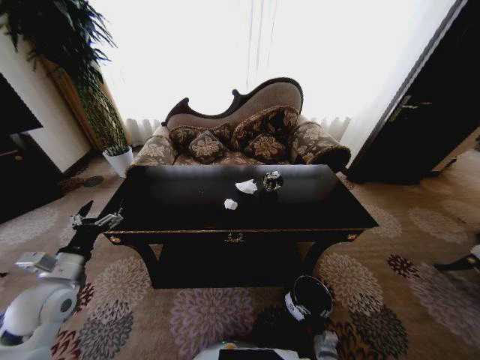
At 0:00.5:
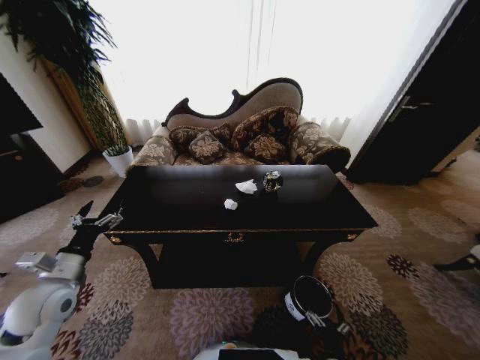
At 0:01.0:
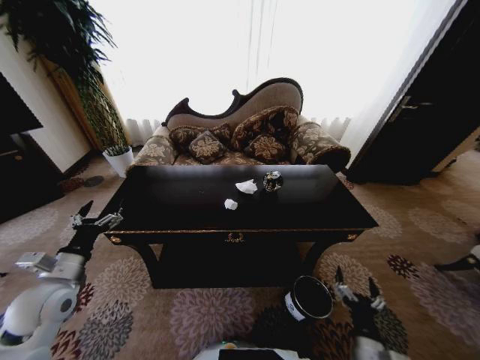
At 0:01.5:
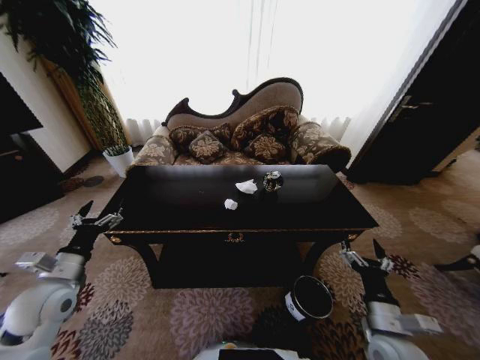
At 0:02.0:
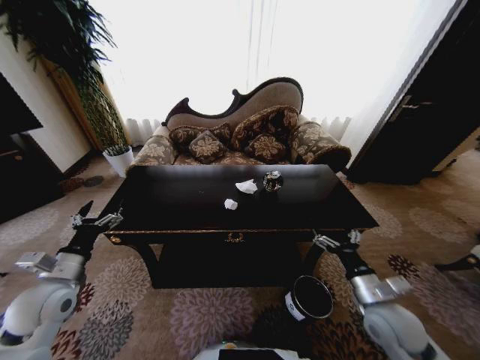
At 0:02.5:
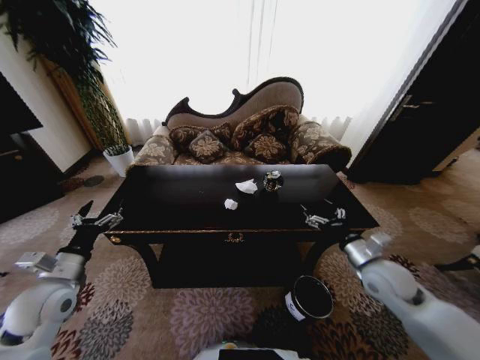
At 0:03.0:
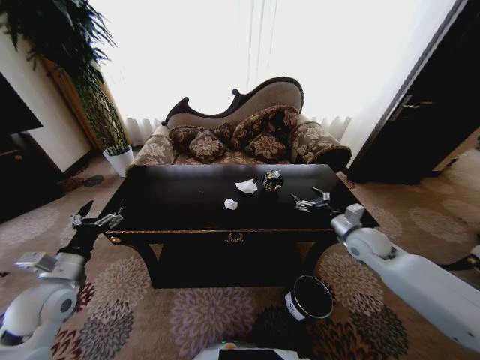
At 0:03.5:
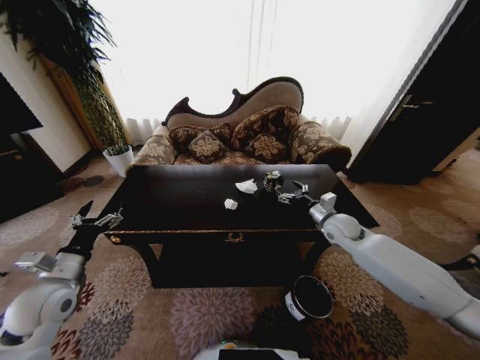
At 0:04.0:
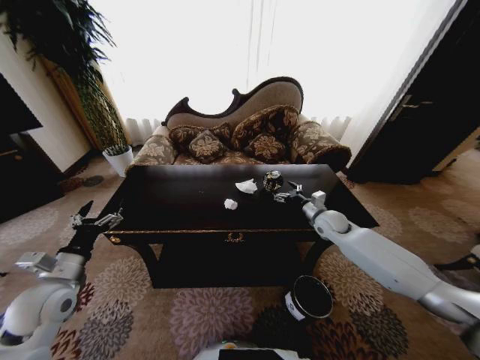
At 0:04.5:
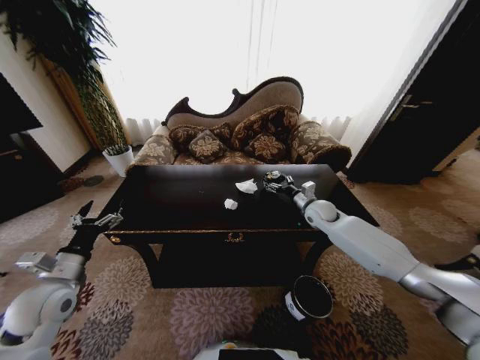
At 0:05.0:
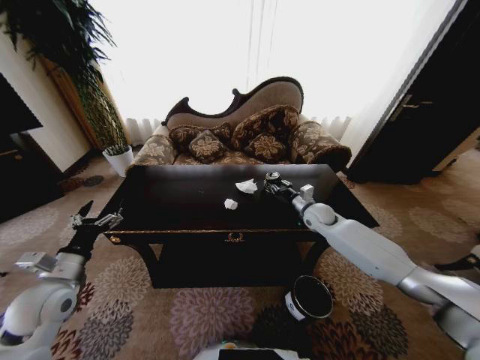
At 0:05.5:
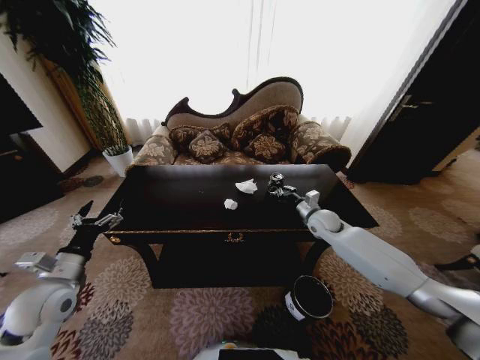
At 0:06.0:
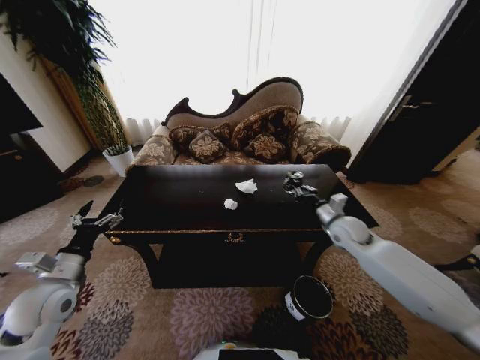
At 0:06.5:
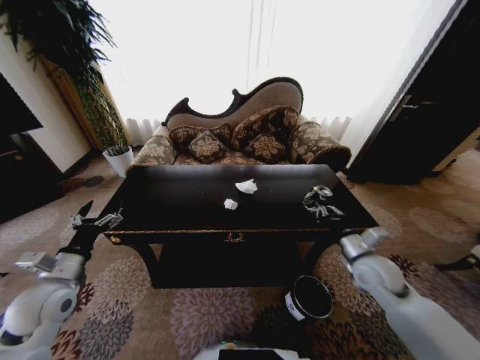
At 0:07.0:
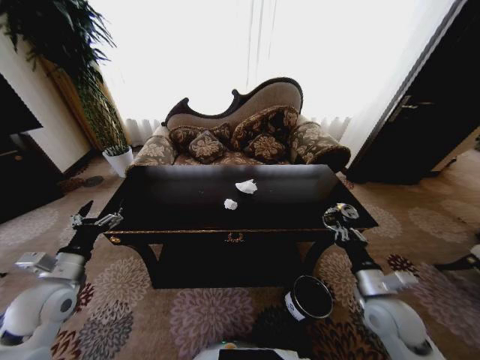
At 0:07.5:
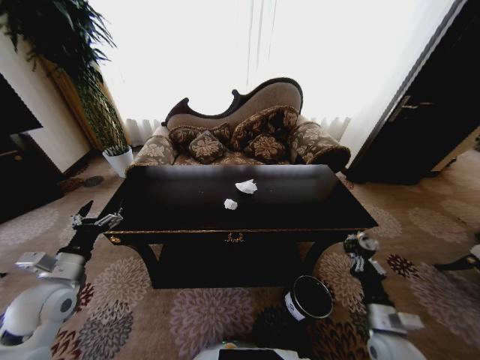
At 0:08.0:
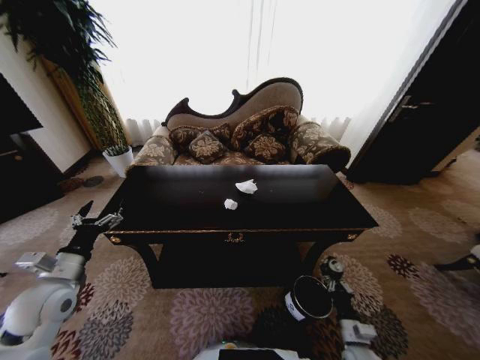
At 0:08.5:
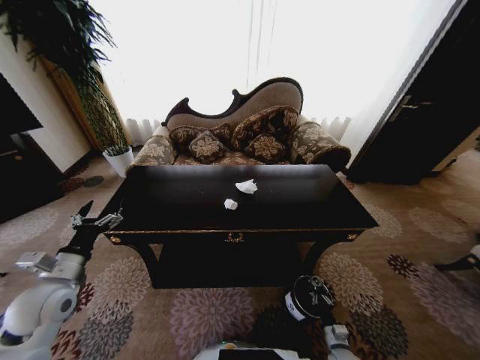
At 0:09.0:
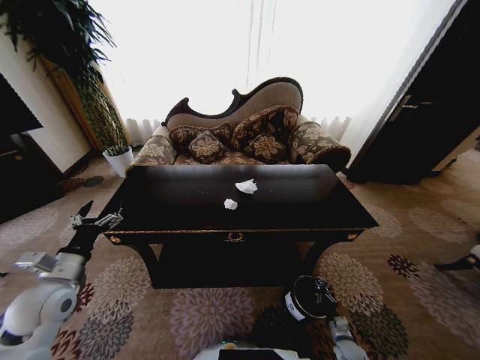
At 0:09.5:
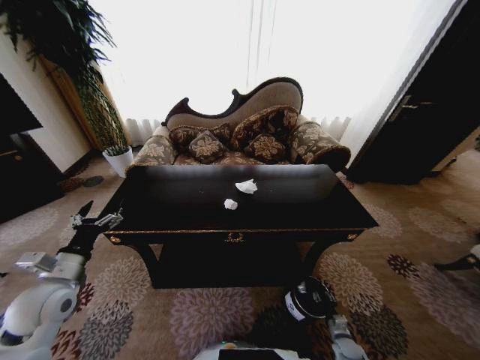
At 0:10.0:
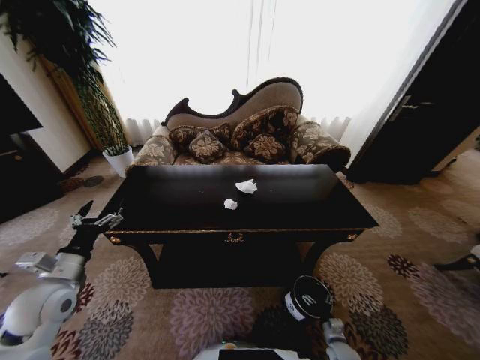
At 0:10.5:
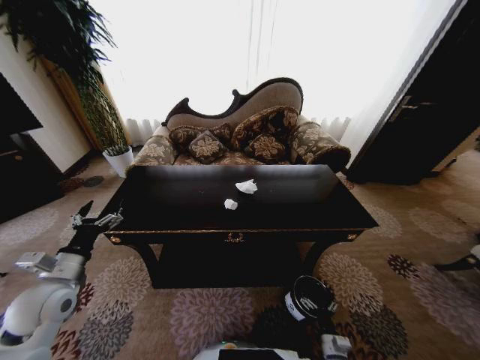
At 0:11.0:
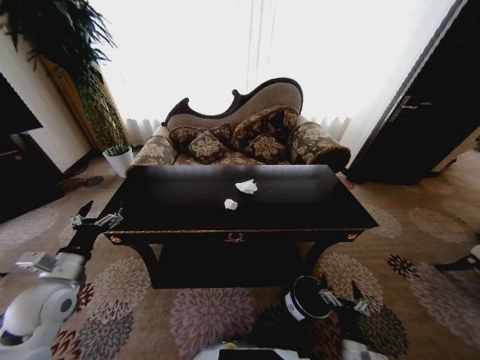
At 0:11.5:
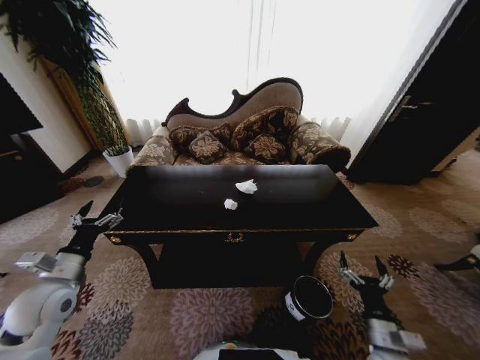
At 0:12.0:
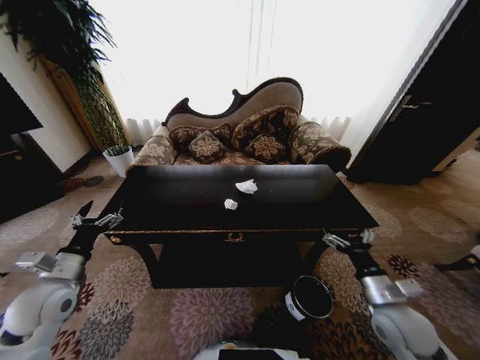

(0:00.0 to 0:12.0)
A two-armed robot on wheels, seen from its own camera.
Task of the whole recording: Move to the front of the table and place the trash on the table into the trash bin.
0:00.0 - 0:02.0: The right gripper is displaced upward by approximately 35 cm.
0:02.0 - 0:04.0: The right gripper is displaced forward by about 30 cm.
0:04.0 - 0:06.0: The right gripper heads backward, covering approximately 5 cm, and closes up.
0:06.0 - 0:08.0: The right gripper goes about 40 cm backward and downward.
0:08.0 - 0:10.0: The right gripper heads downward, covering roughly 15 cm, and opens.
0:10.0 - 0:12.0: The right gripper goes about 35 cm upward.

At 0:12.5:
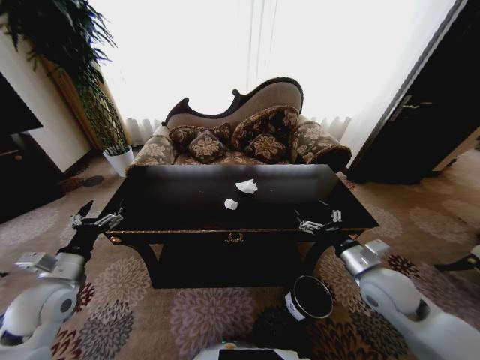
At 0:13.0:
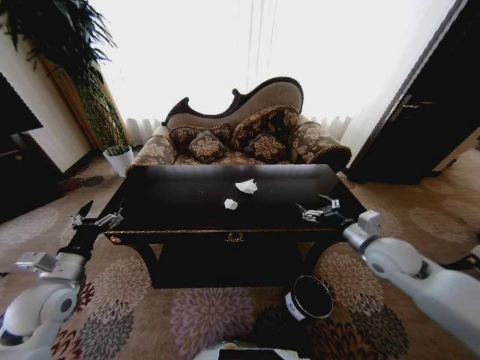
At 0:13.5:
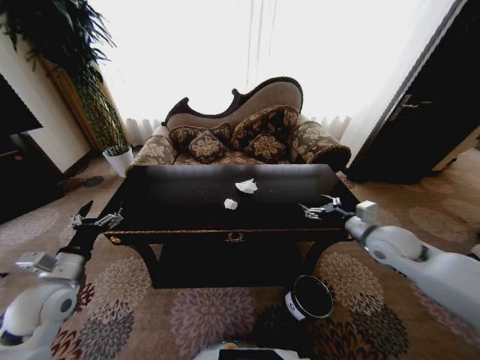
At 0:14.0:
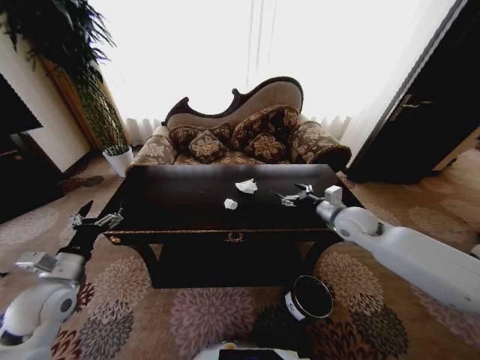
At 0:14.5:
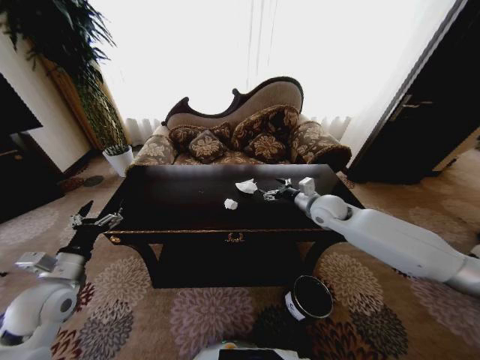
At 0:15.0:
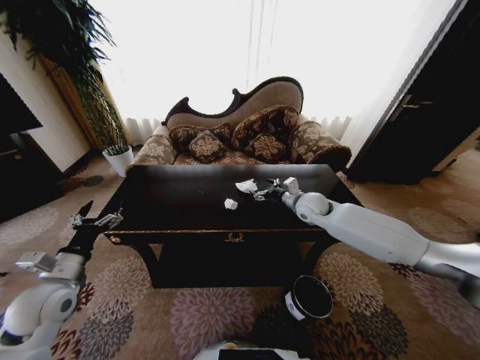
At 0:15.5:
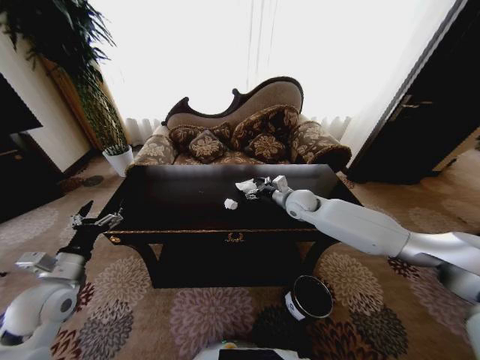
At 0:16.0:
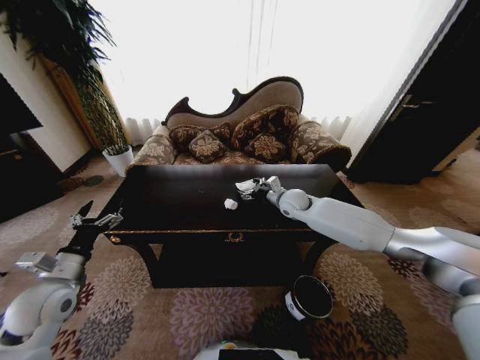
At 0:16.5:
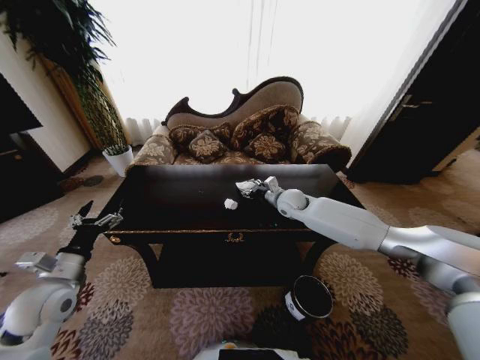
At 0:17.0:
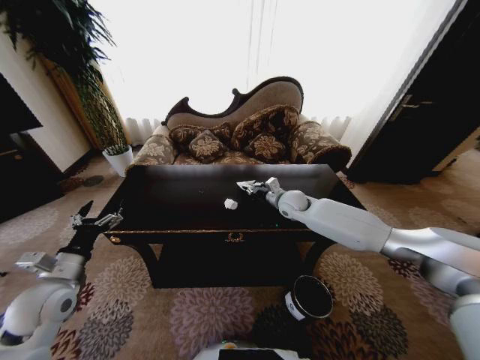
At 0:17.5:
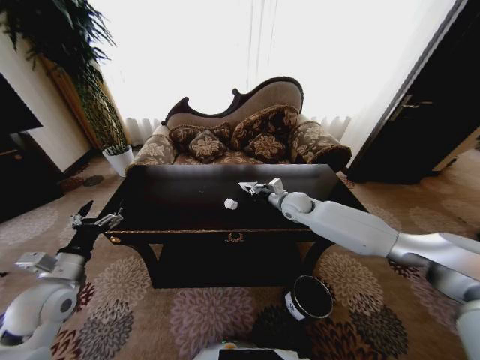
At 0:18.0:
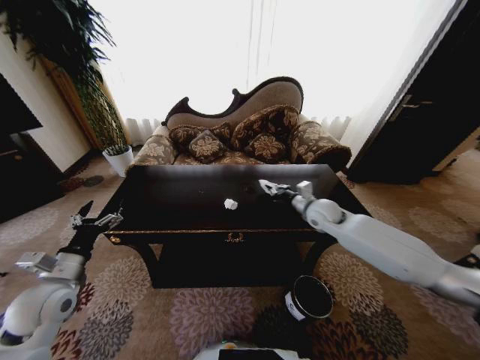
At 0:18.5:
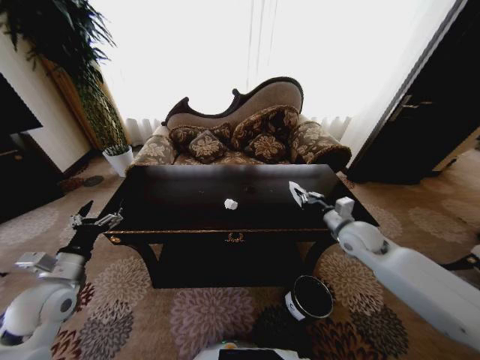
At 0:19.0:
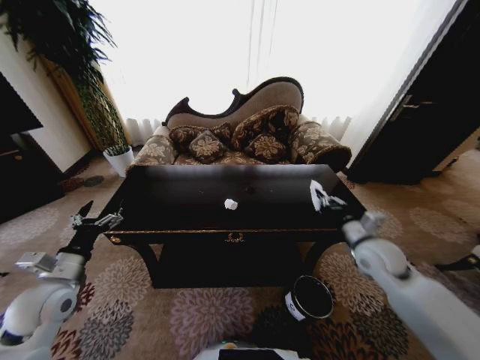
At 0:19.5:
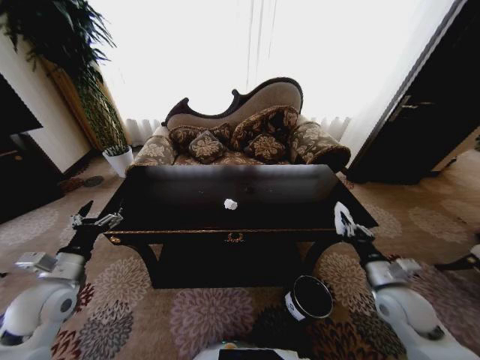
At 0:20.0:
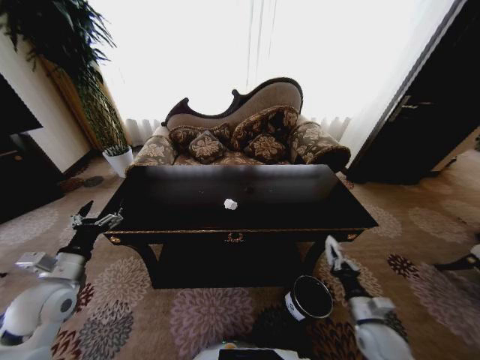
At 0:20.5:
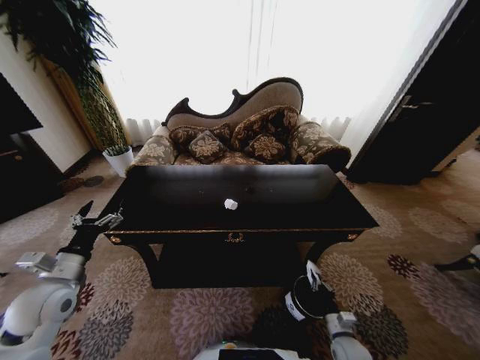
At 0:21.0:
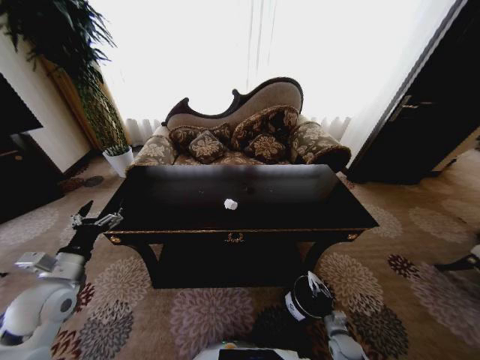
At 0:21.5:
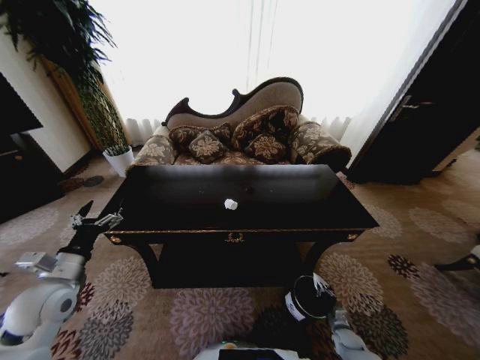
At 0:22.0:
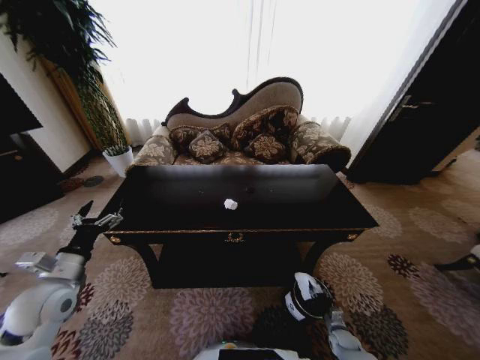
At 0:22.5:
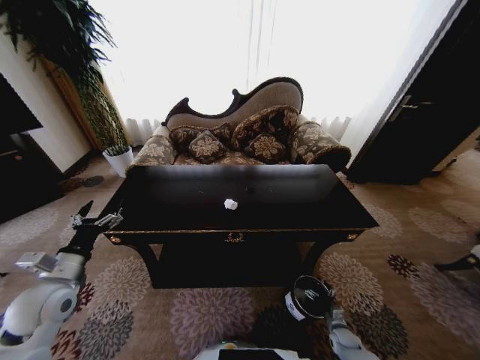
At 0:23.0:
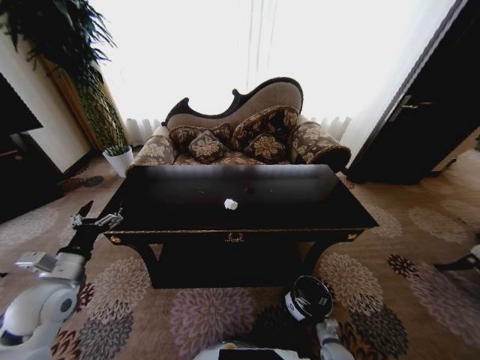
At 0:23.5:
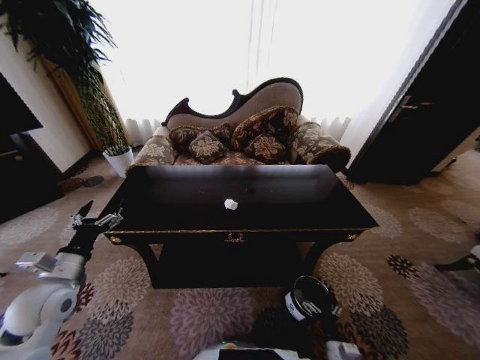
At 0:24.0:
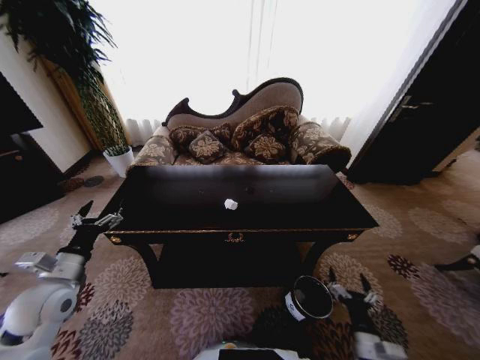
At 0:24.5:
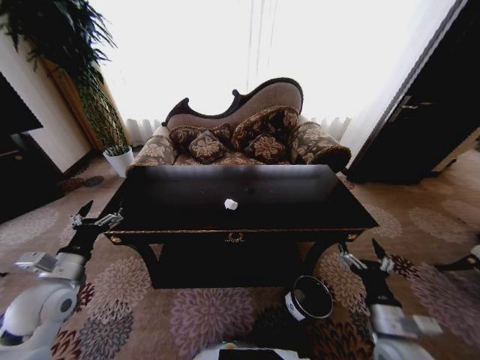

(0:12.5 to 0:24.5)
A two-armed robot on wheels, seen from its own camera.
Task of the whole recording: Move to the front of the table and place the trash on the table into the trash bin.
0:12.5 - 0:14.5: The right gripper moves forward, some 20 cm.
0:14.5 - 0:16.5: The right gripper is displaced to the left and forward by roughly 10 cm.
0:16.5 - 0:18.5: The right gripper goes about 20 cm backward and to the right, and closes.
0:18.5 - 0:20.5: The right gripper goes approximately 35 cm downward and backward.
0:20.5 - 0:22.5: The right gripper shifts some 15 cm downward and to the right, and opens.
0:22.5 - 0:24.5: The right gripper shifts approximately 30 cm upward.

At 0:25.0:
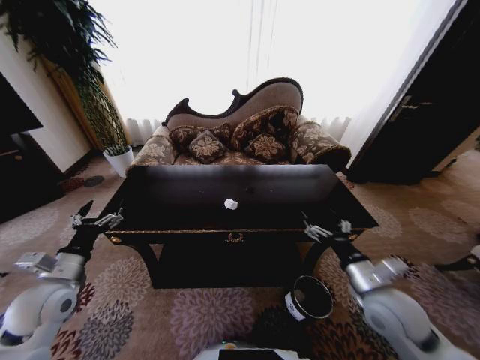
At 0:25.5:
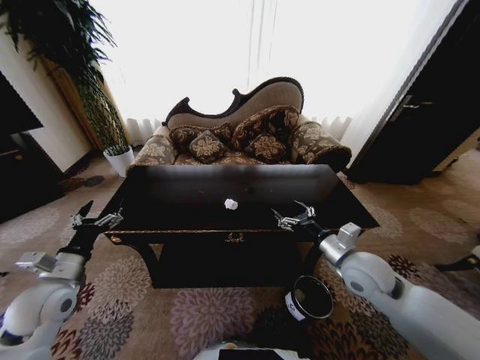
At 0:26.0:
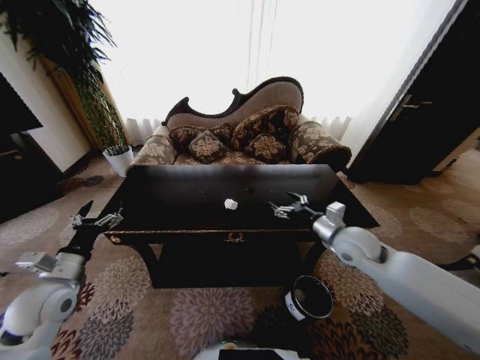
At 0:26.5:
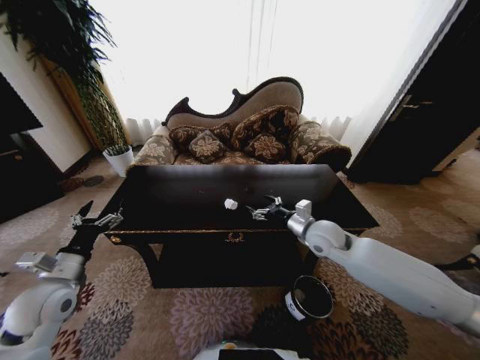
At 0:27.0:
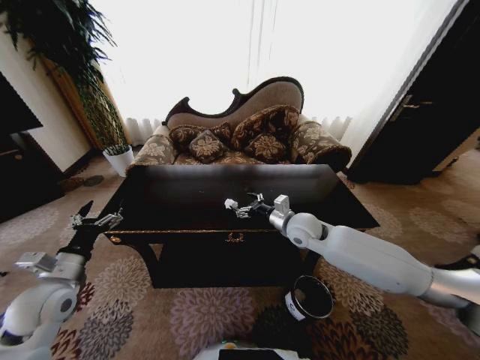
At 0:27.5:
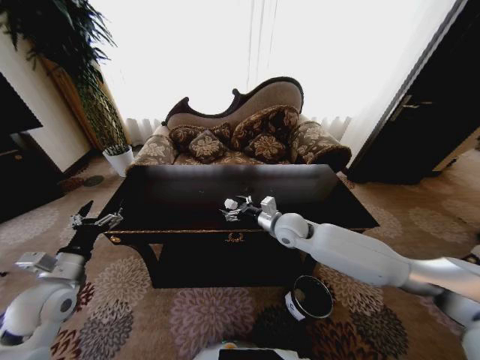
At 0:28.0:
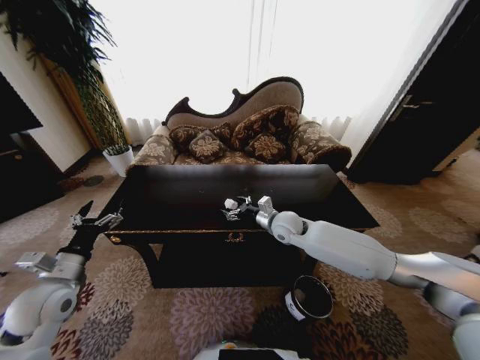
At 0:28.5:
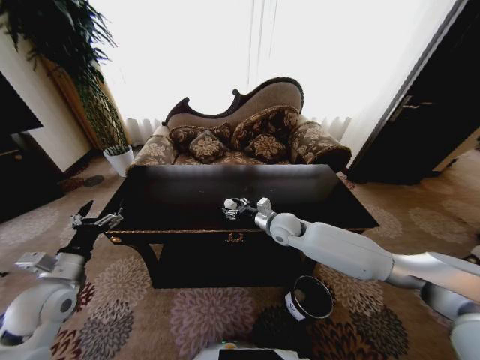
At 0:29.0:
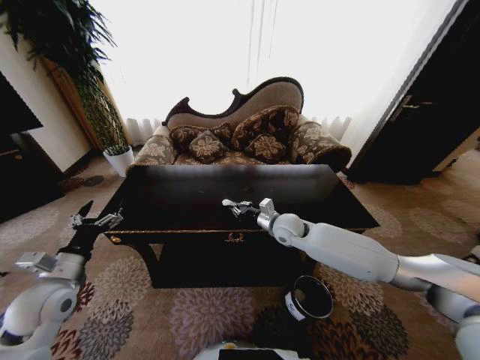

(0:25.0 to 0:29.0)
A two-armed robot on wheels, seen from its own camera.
Task of the whole recording: Move to the front of the table and place the trash on the table into the trash bin.
0:25.0 - 0:27.0: The right gripper goes some 25 cm forward and to the left.
0:27.0 - 0:29.0: The right gripper shifts by about 5 cm, and closes.
